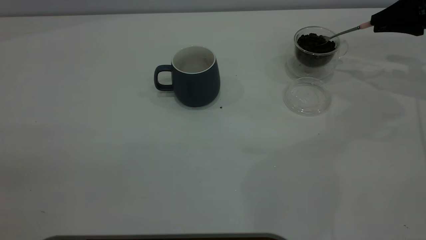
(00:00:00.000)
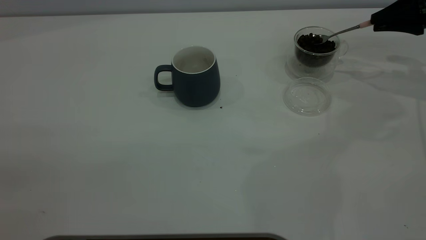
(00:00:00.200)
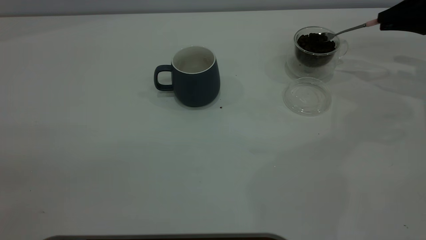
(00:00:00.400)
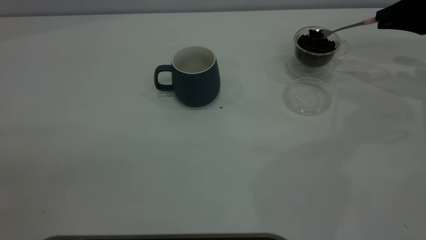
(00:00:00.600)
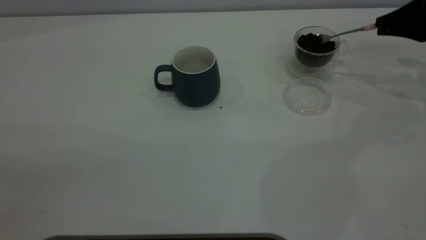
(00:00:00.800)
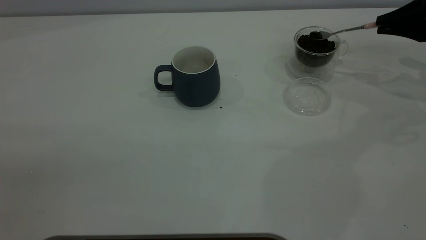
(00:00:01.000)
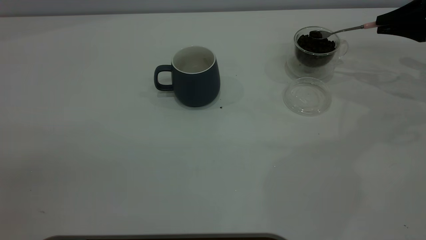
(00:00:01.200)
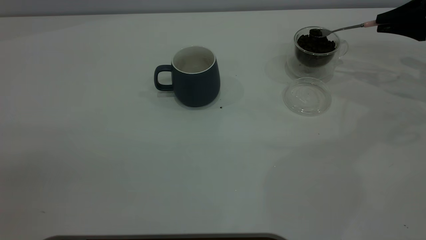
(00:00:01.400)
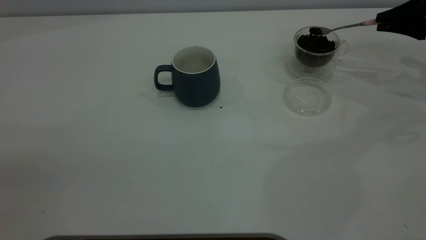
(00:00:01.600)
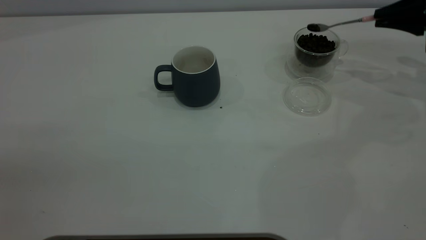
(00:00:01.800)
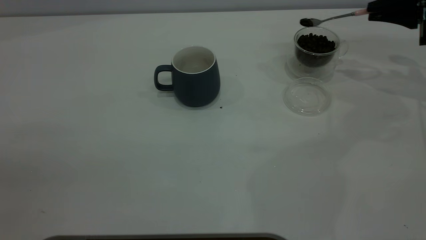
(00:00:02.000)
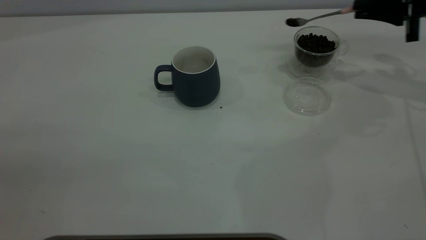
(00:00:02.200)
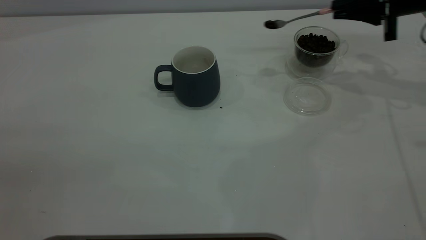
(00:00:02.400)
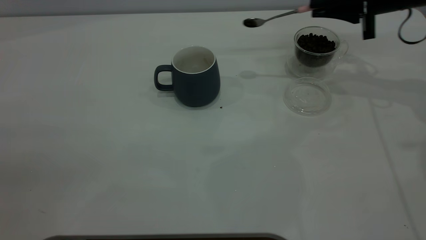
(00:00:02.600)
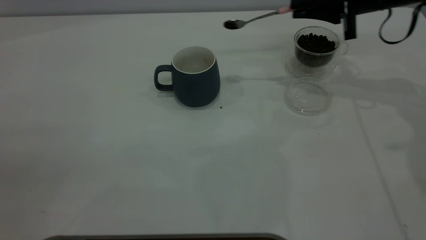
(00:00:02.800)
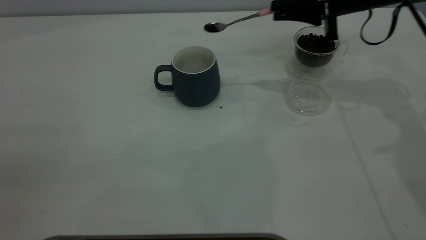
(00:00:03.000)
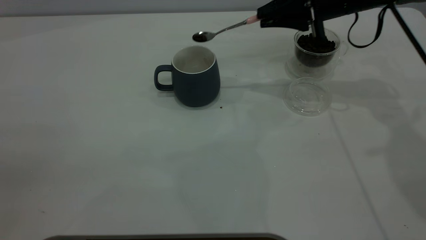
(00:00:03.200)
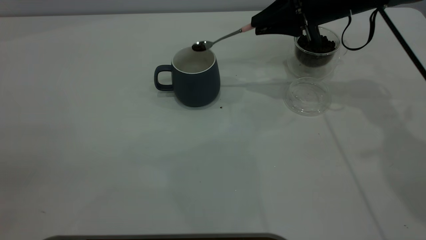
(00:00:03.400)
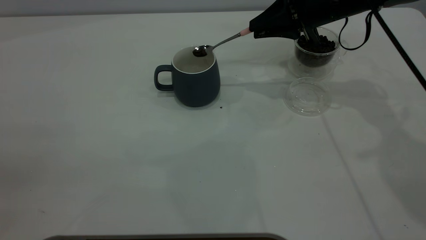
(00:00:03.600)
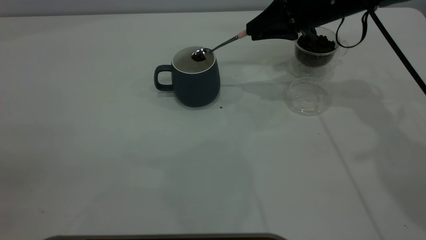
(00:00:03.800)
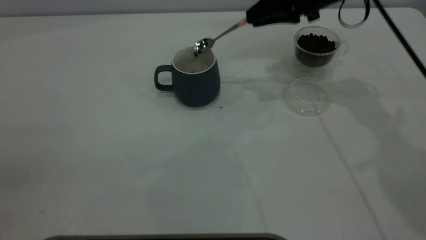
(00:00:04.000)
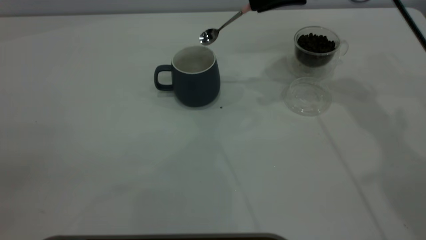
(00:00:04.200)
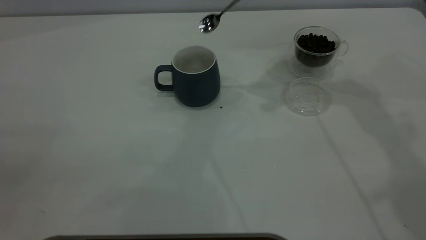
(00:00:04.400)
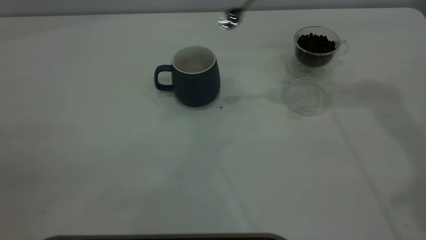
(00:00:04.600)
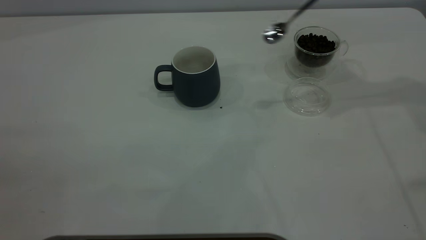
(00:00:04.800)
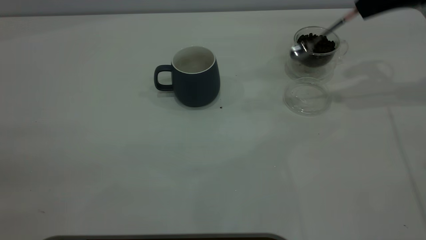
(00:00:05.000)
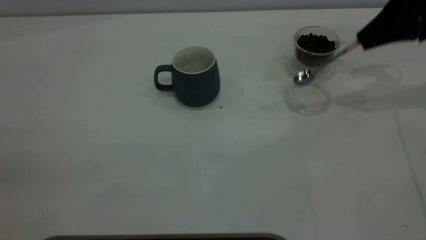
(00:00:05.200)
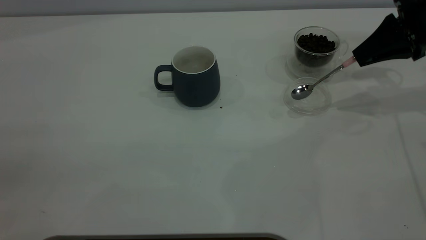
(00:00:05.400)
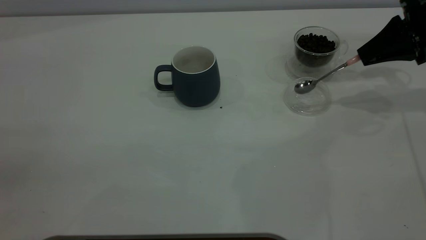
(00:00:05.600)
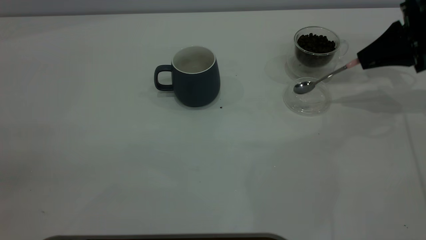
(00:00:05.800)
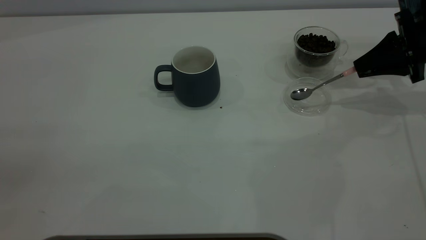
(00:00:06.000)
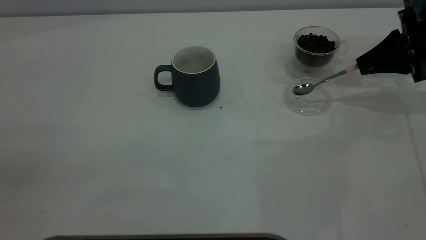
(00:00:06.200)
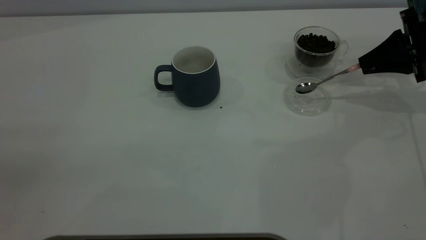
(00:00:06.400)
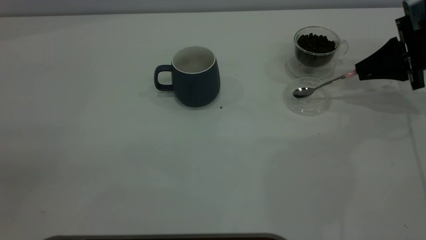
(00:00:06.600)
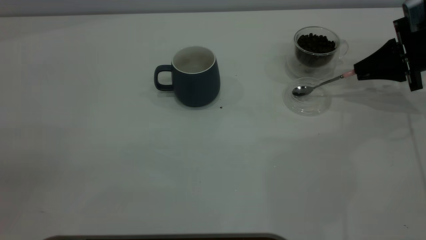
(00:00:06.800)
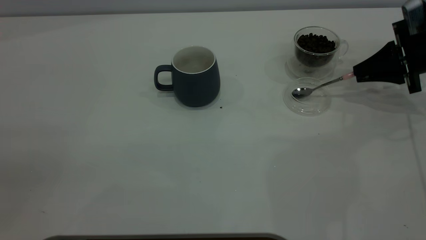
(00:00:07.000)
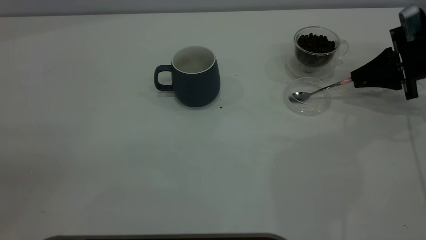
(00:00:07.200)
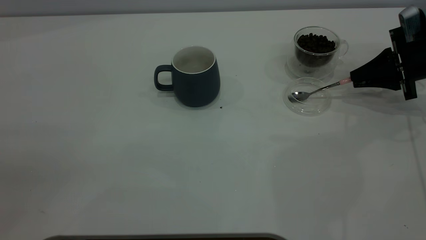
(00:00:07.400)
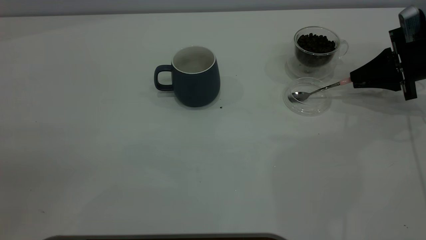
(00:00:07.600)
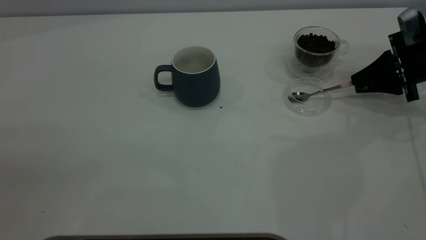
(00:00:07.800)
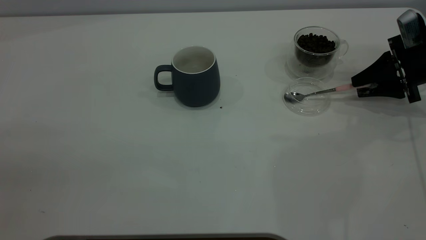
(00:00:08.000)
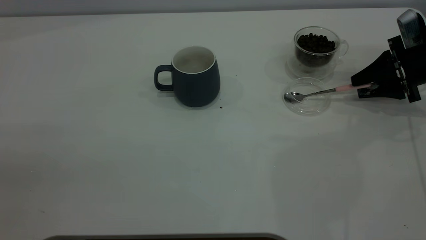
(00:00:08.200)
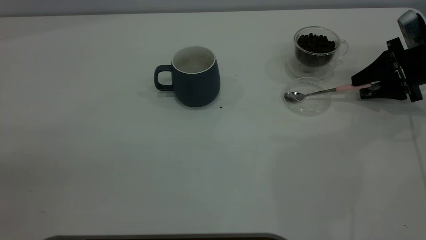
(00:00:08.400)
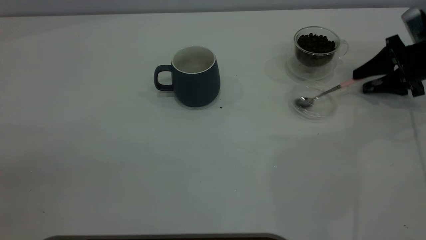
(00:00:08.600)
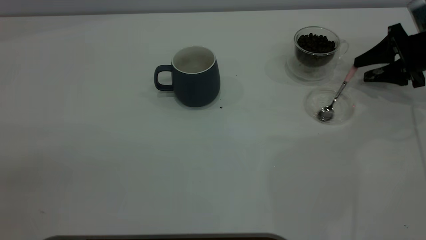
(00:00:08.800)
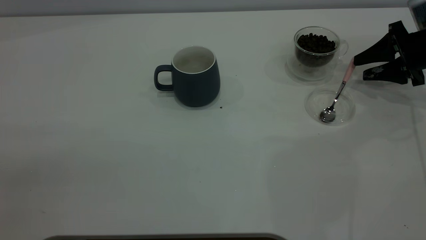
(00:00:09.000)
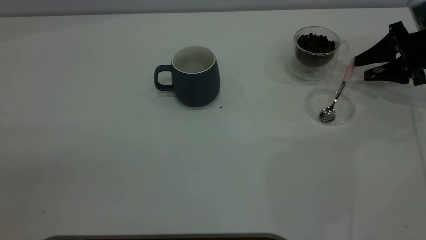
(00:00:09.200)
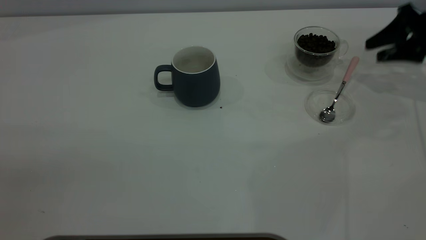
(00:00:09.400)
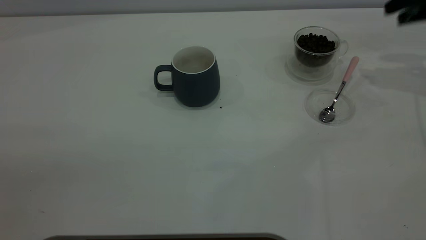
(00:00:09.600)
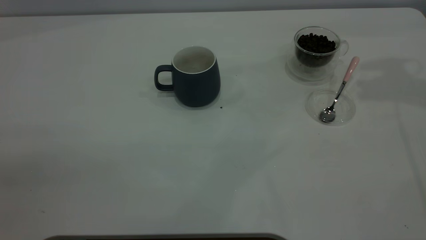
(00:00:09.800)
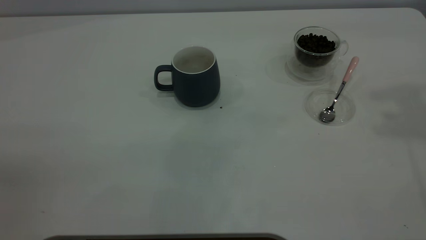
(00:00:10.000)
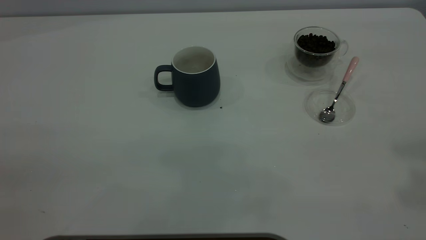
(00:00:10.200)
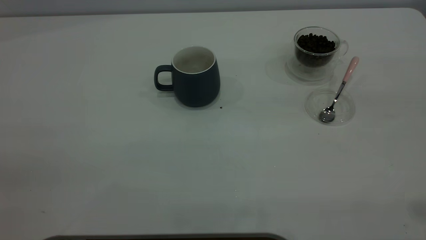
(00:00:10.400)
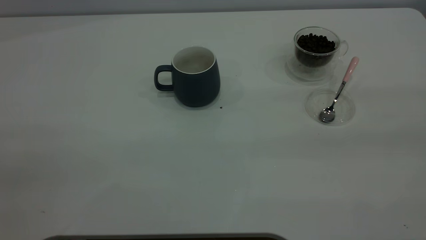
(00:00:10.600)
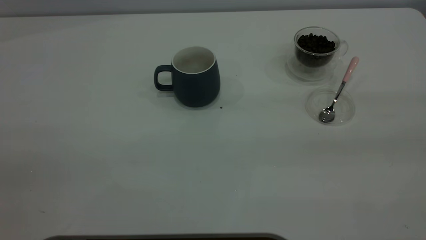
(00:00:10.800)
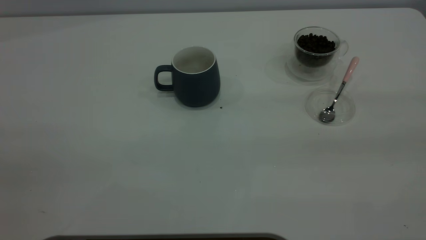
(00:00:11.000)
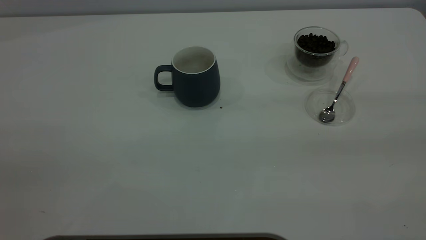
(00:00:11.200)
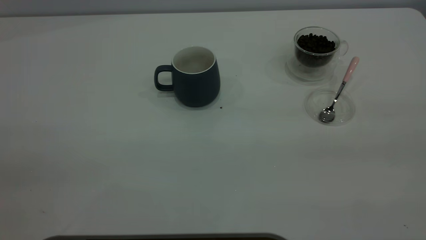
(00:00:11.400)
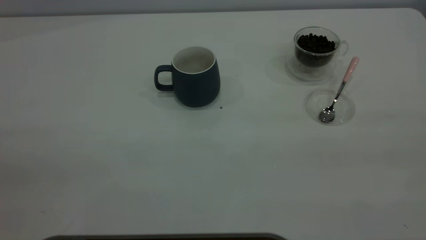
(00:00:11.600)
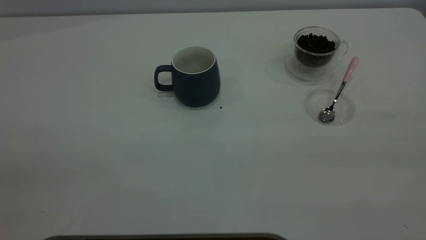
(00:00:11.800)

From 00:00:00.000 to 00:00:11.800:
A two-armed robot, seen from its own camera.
Task of the whole recording: the left gripper place the grey cup in the center of the table, the right gripper take the pink spoon from the cup lid and scoop out the coffee beans from the coffee cup and put them into the grey cup, the right gripper put the spoon back into the cup lid.
Step, from 00:00:00.000 to 00:00:04.000: Scoop a spoonful of beans into the cup.
Step, from 00:00:04.400 to 00:00:09.400: Place the spoon back in its original place.
From 00:00:01.400 to 00:00:03.000: The right gripper is displaced to the left by some 20 cm.
From 00:00:03.000 to 00:00:04.400: The right gripper is displaced upward by some 10 cm.
From 00:00:04.400 to 00:00:06.000: The right gripper shifts roughly 25 cm to the right and downward.
From 00:00:06.000 to 00:00:07.400: There are only small adjustments of the grippers.
From 00:00:07.400 to 00:00:08.800: The right gripper opens.
From 00:00:08.800 to 00:00:10.400: The right gripper heads upward and backward, covering about 40 cm.
